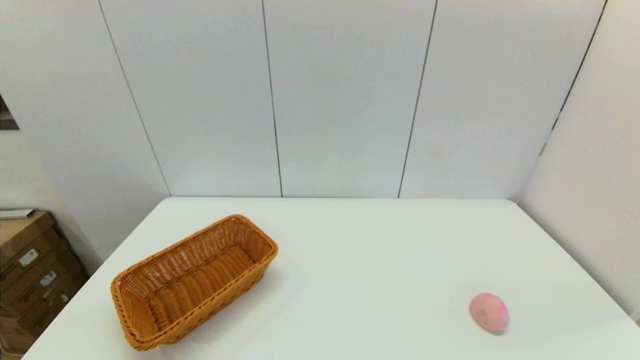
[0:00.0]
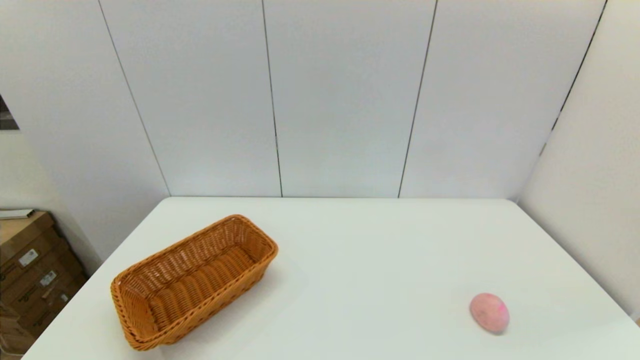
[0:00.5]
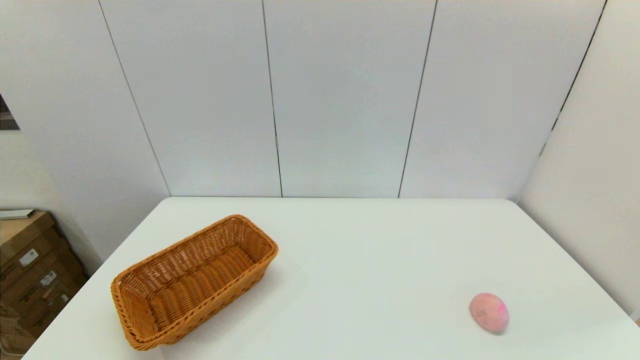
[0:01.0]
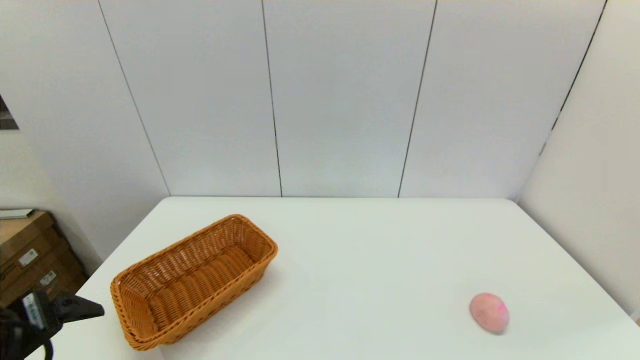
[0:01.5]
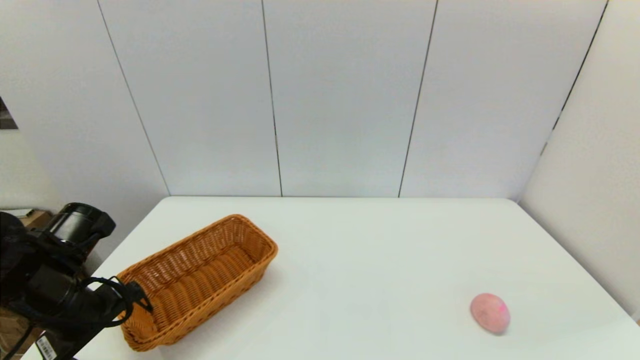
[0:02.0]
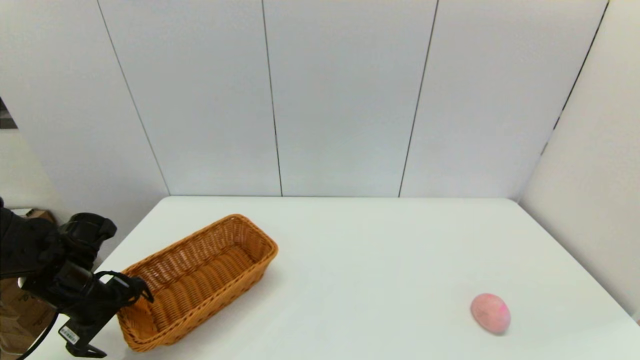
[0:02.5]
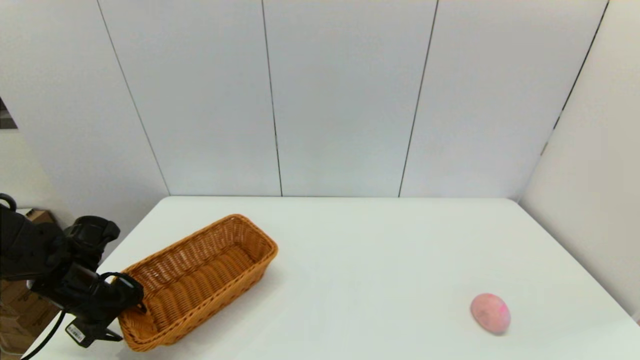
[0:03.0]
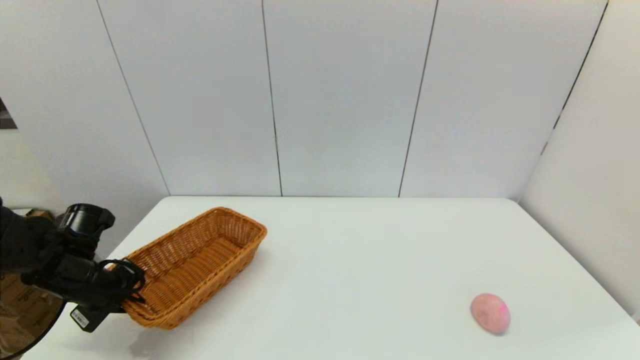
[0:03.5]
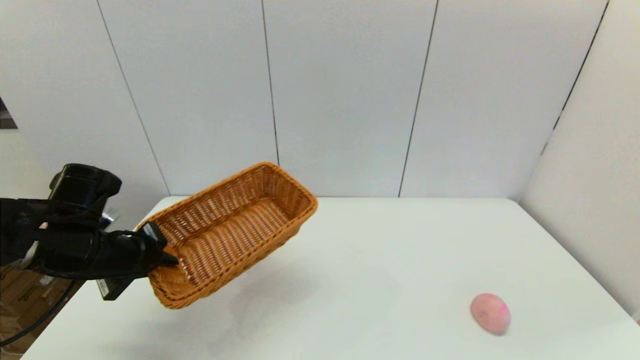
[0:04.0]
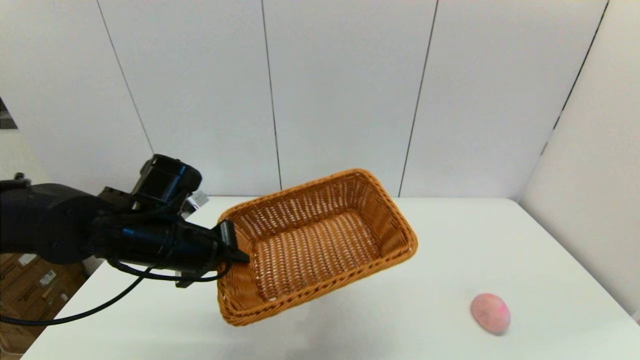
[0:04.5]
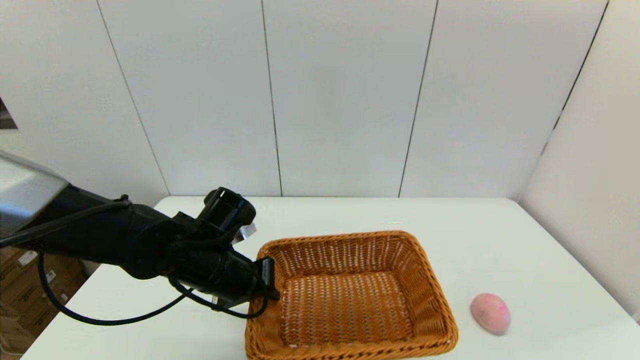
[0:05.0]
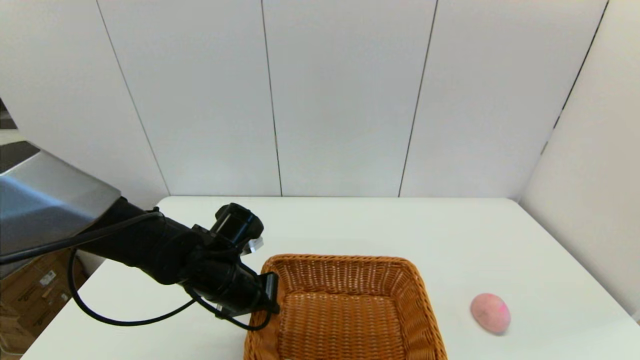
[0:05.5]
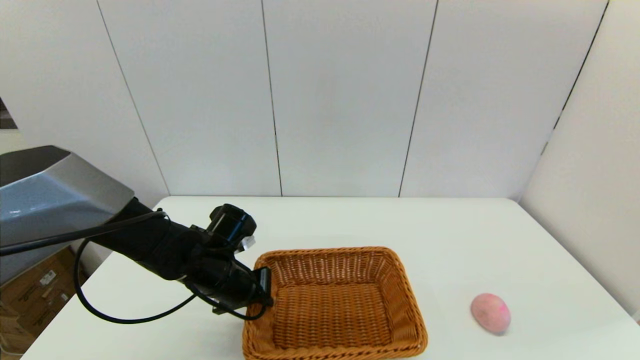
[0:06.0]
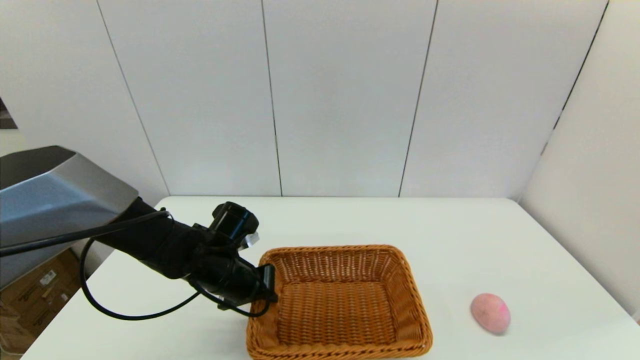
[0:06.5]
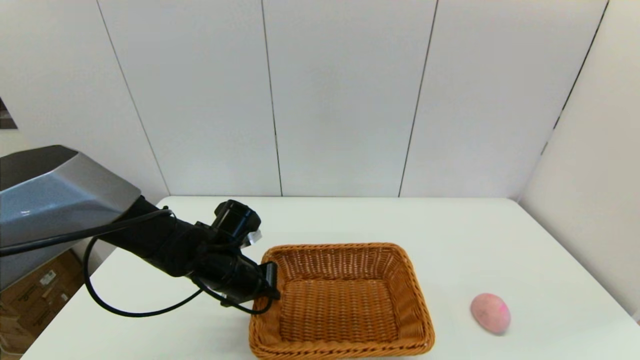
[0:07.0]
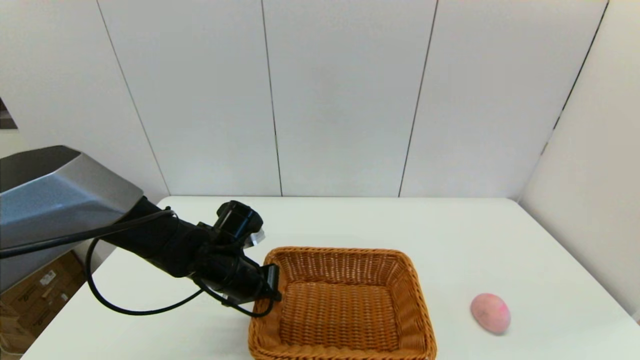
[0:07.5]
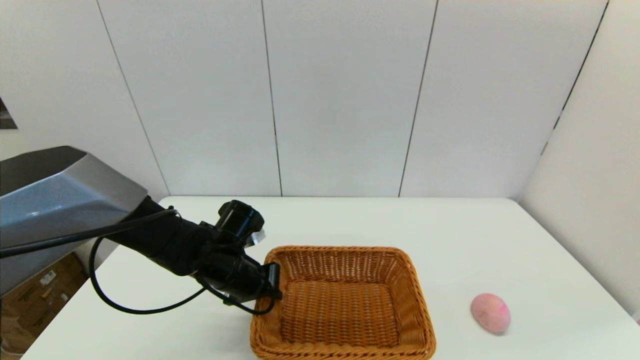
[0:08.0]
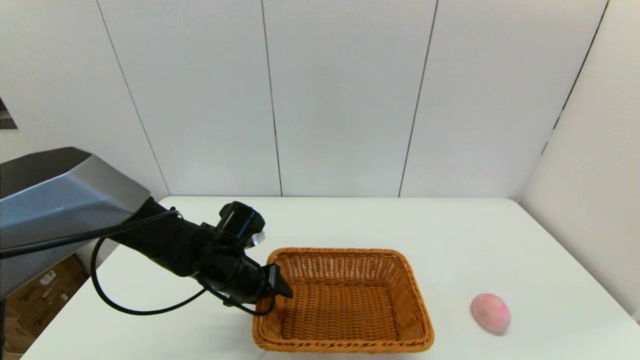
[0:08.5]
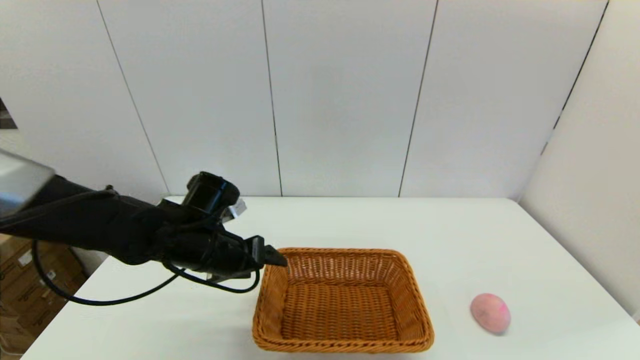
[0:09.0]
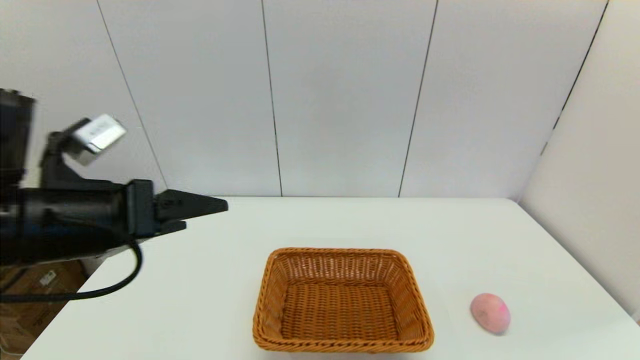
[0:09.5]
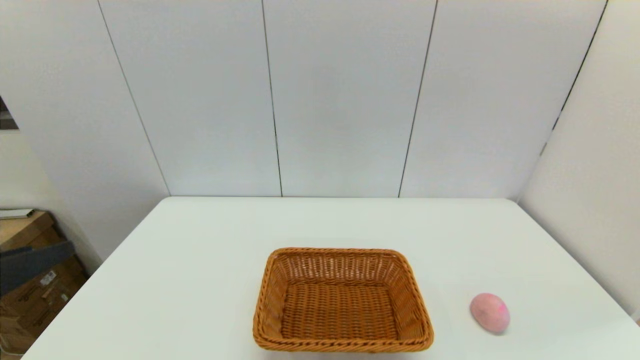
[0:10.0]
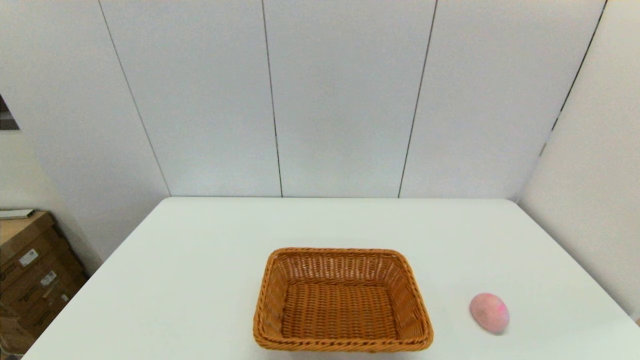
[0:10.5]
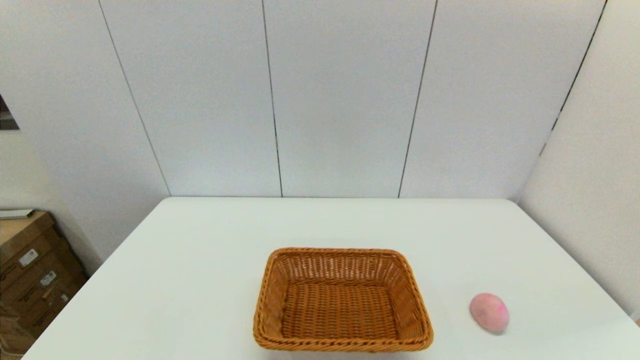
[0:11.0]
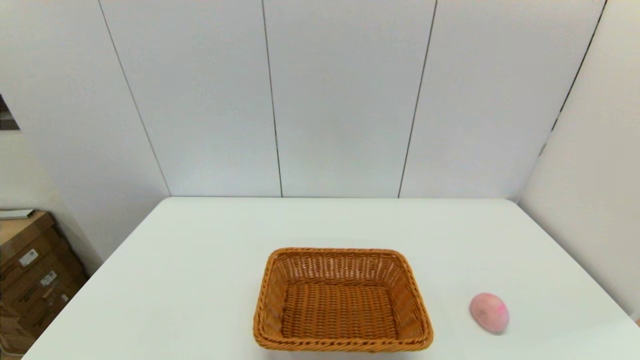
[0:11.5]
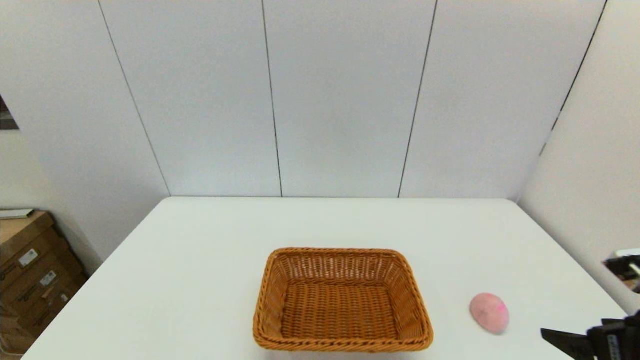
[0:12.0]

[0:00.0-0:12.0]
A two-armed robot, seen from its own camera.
Step, 0:00.0 to 0:03.0: Grasp the light basket with the left gripper.
Step, 0:03.5 to 0:08.5: Place the light basket on the middle of the table with the left gripper.
0:00.0 to 0:02.0: The left gripper moves forward, approximately 25 cm.
0:02.0 to 0:04.0: The left gripper travels downward and back again, roughly 5 cm each way, and closes.
0:04.0 to 0:06.0: The left gripper is displaced to the right and downward by about 15 cm.
0:06.0 to 0:08.0: There are only small adjustments of the grippers.
0:08.0 to 0:10.0: The left gripper is displaced backward, upward and to the left by roughly 35 cm, and opens its fingers.
0:10.0 to 0:12.0: The right gripper shifts some 15 cm forward.

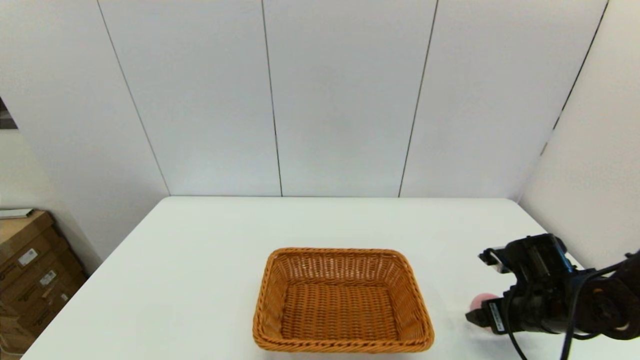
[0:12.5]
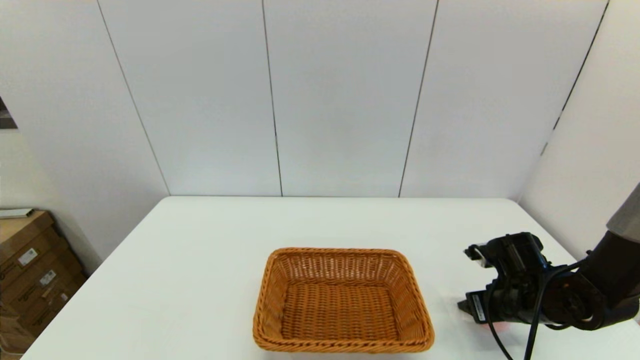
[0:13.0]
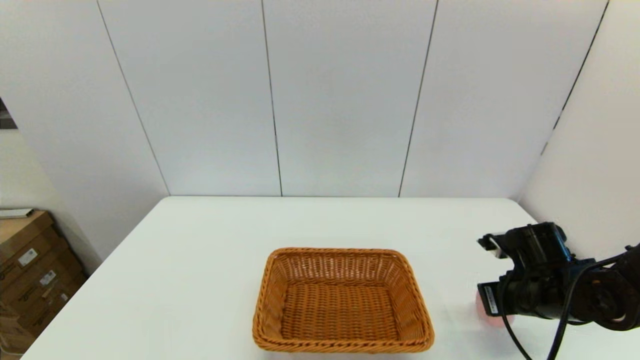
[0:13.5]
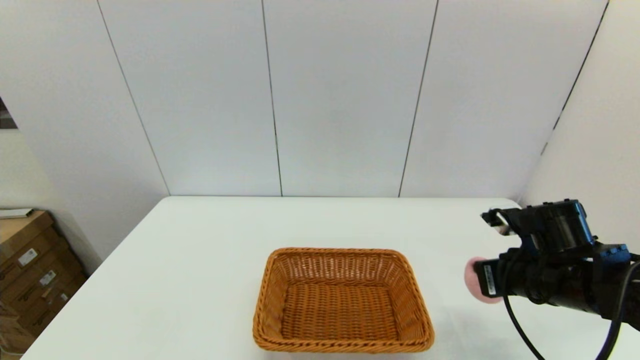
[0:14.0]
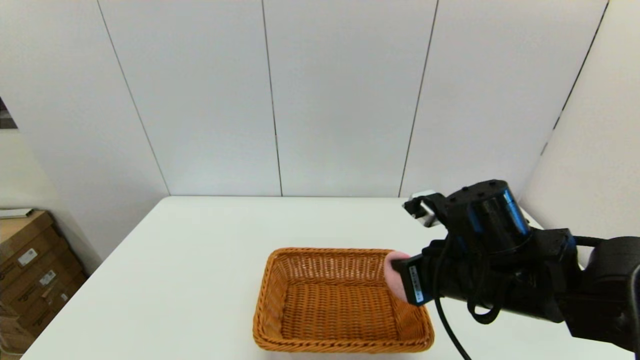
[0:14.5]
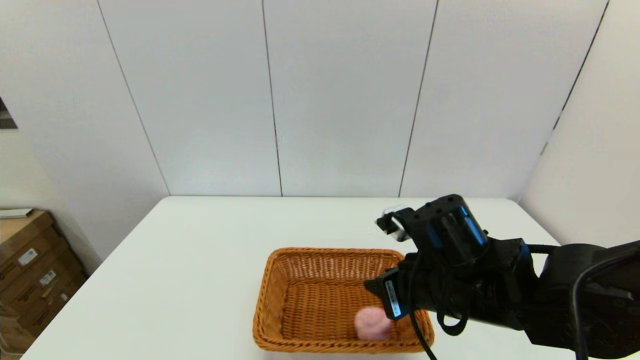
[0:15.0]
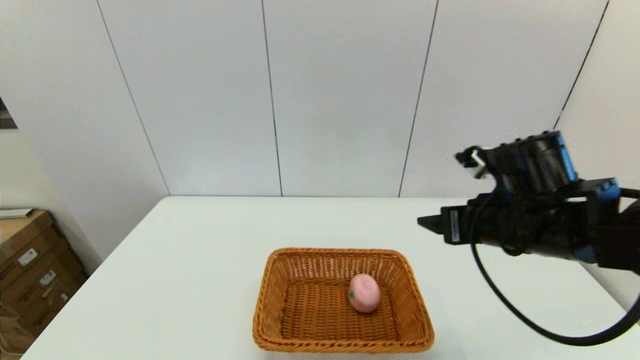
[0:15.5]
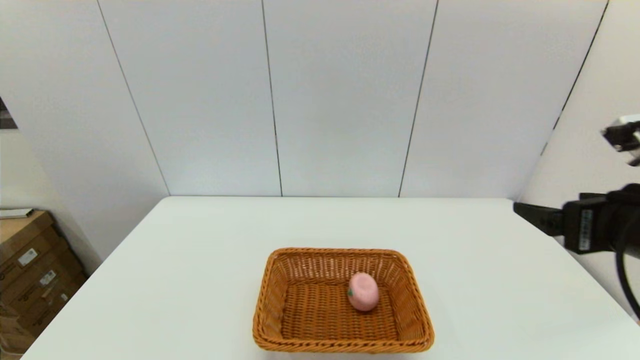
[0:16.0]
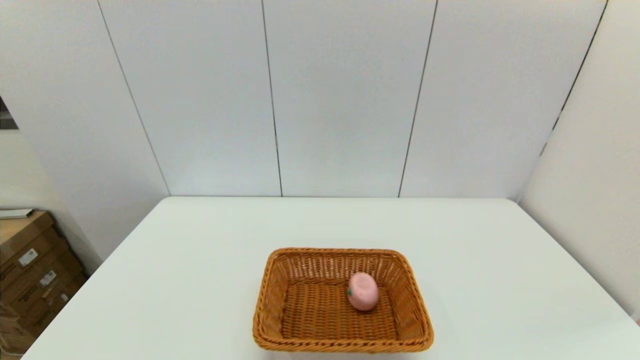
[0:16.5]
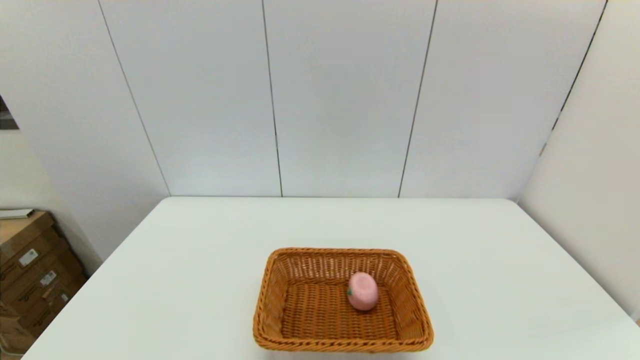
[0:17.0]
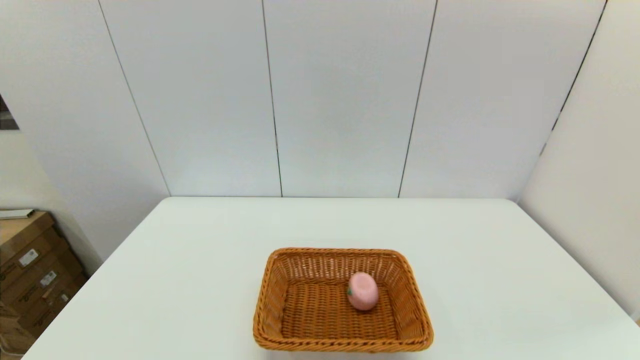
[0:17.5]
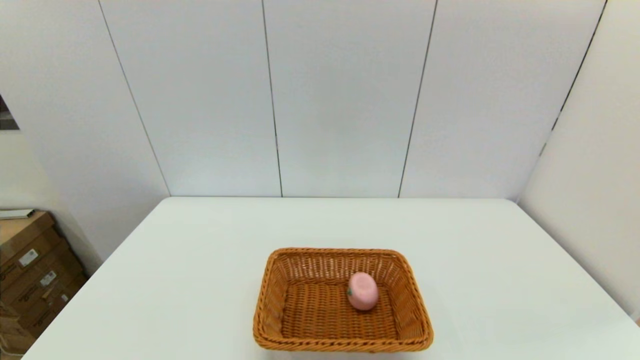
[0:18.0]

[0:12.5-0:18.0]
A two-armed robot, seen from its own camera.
Step, 0:13.5 to 0:15.0: Place the peach into the light basket with the right gripper.
0:12.5 to 0:14.5: The right gripper travels to the left and upward by roughly 20 cm, and closes.
0:14.5 to 0:16.0: The right gripper shifts some 15 cm to the right, upward and backward, and opens its fingers.
0:16.0 to 0:18.0: The right gripper travels backward and downward by about 25 cm.

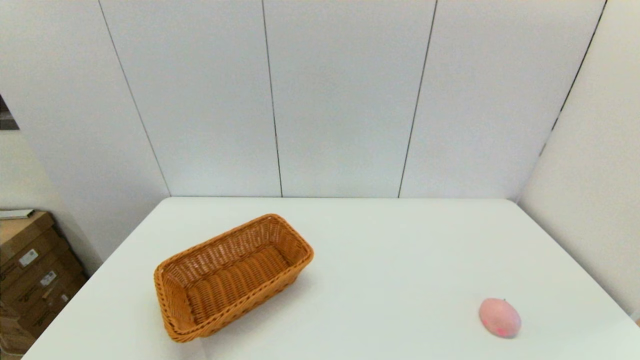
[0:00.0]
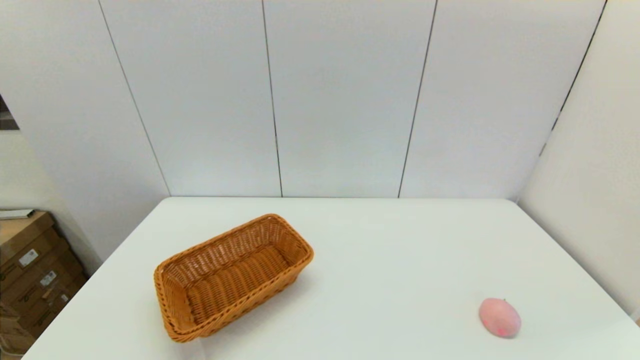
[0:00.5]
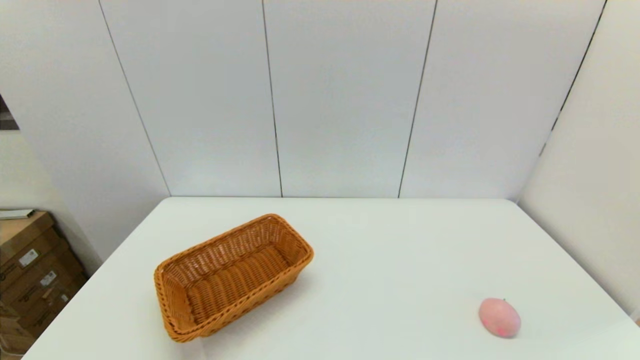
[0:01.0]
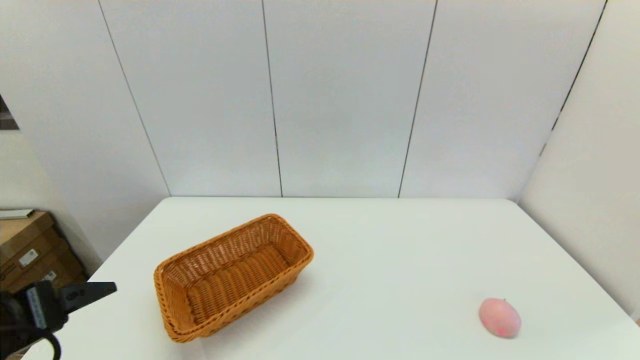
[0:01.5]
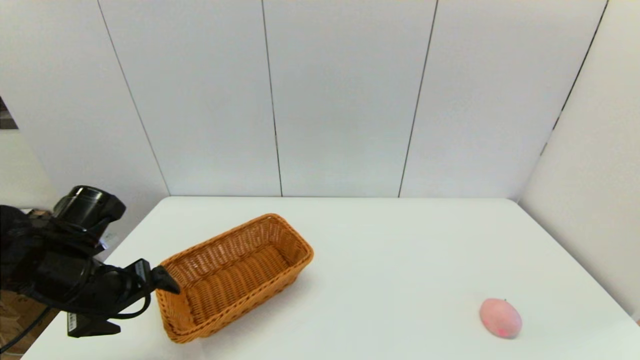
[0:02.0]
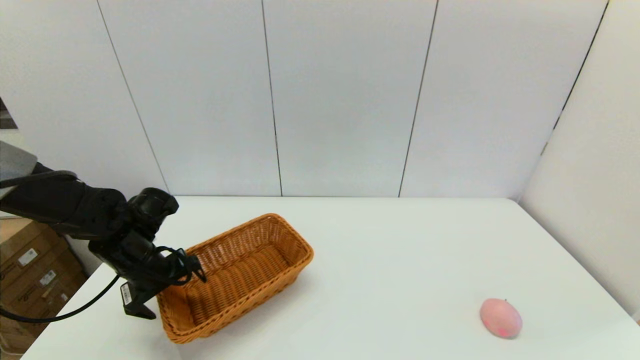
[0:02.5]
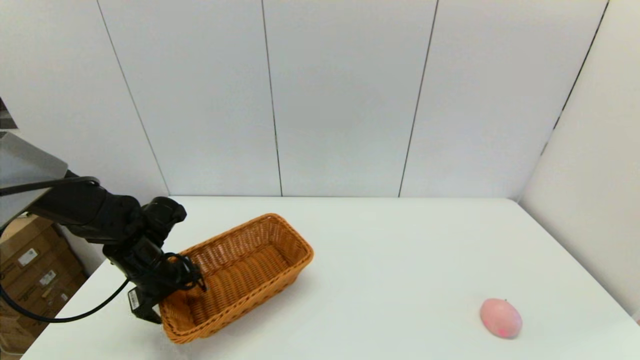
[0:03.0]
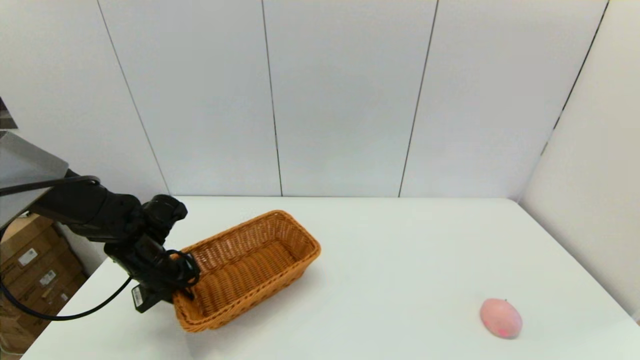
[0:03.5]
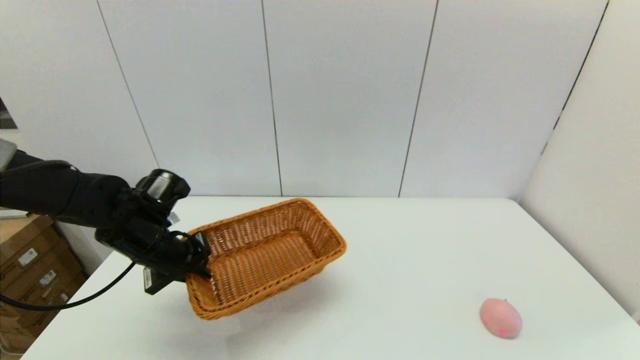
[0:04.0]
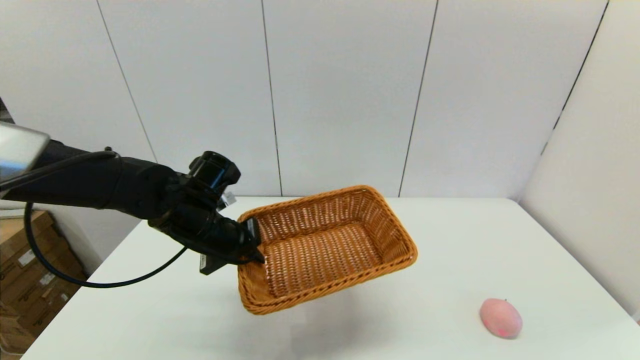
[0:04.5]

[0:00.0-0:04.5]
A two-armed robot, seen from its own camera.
Step, 0:00.0 to 0:03.5: Grasp the light basket with the left gripper.
0:00.0 to 0:02.0: The left gripper moves forward, some 25 cm.
0:02.0 to 0:04.5: The left gripper is displaced to the right and forward by approximately 15 cm, and closes its fingers.
